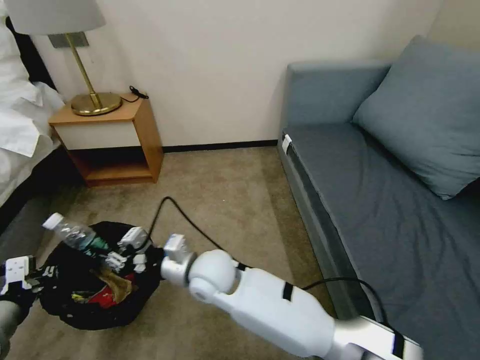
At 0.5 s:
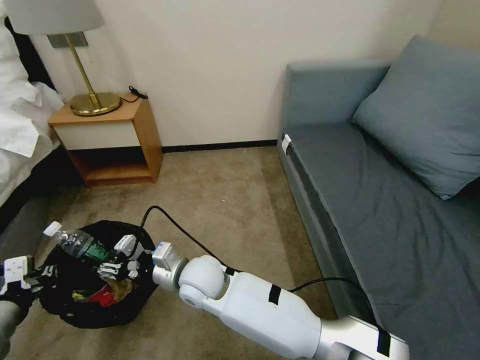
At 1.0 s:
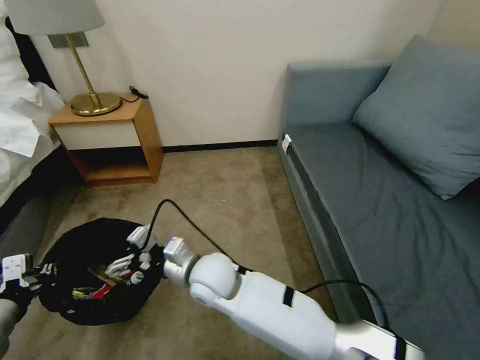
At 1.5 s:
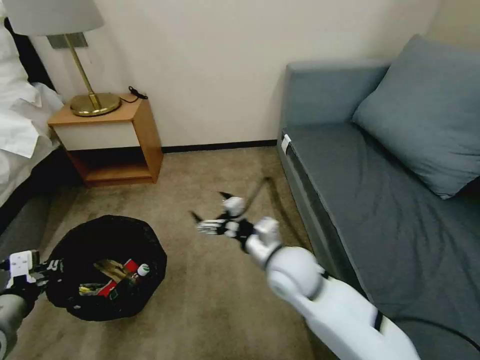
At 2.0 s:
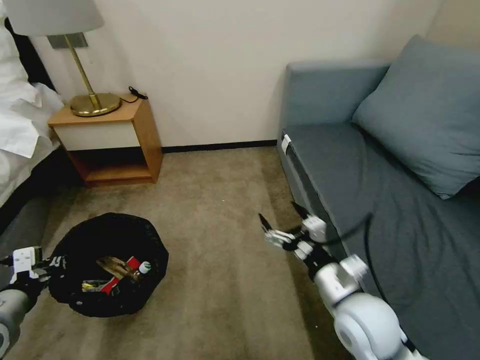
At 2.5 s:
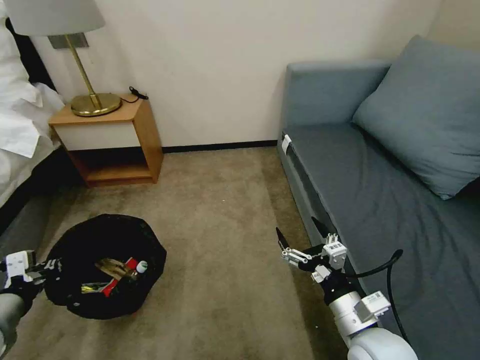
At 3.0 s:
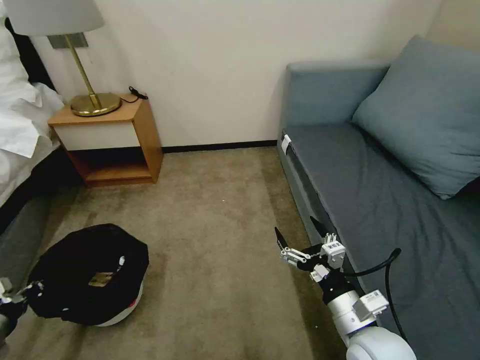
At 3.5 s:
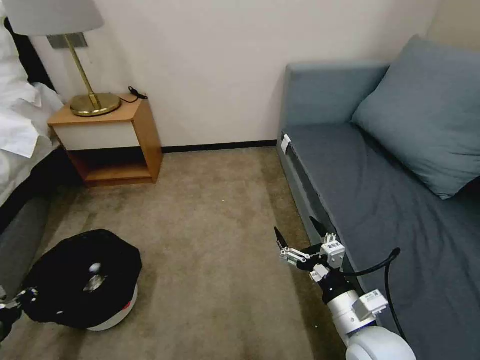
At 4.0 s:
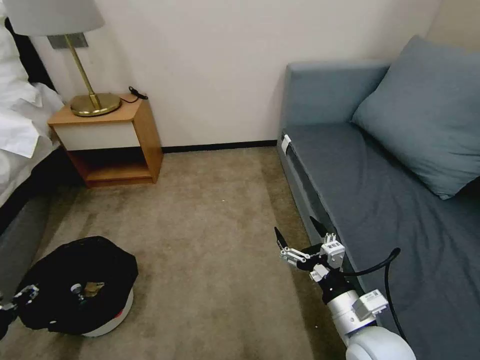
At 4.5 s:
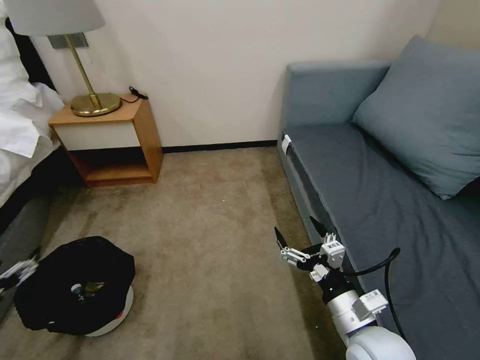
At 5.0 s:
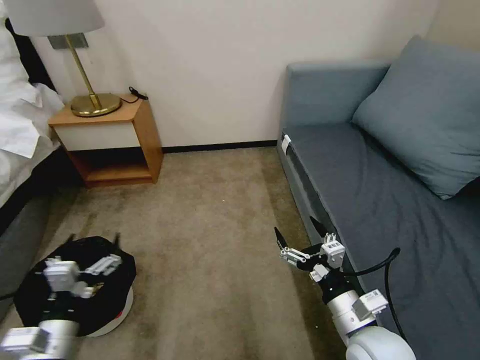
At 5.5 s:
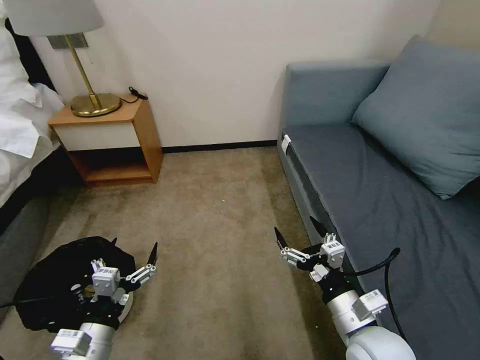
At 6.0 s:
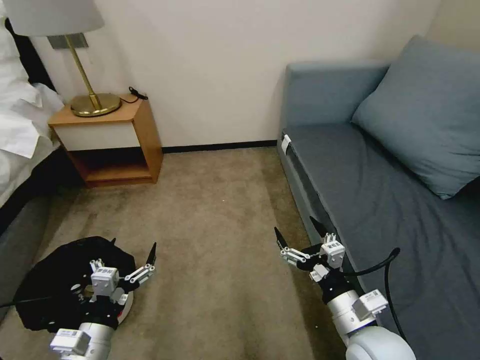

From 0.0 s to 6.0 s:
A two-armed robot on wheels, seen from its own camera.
Task of the whole recording: Pick up the trash bin, then pick up the garbage on the floor and place it into the trash bin.
From 0.0 s to 2.0 s: The right gripper is displaced to the right by approximately 30 cm, and opens.
From 2.0 s to 4.0 s: The left gripper shifts about 15 cm to the left and downward.
From 4.0 s to 6.0 s: The left gripper heads to the right, covering about 25 cm, and opens up.

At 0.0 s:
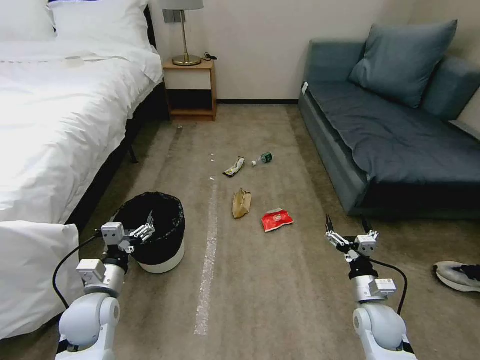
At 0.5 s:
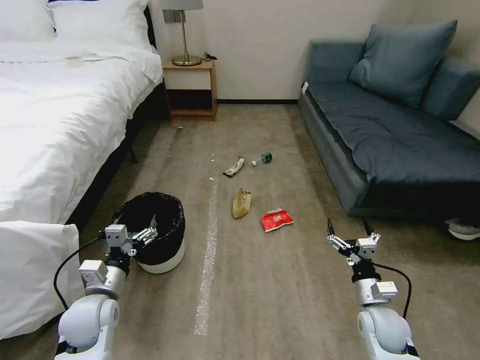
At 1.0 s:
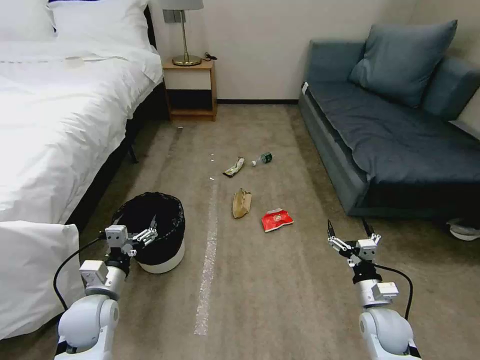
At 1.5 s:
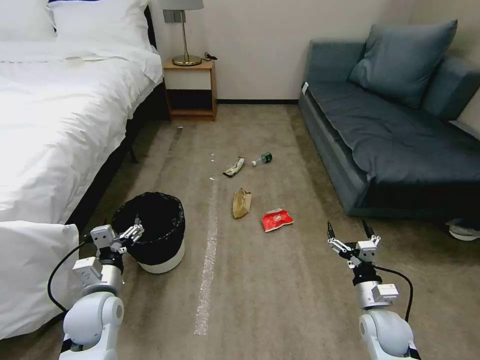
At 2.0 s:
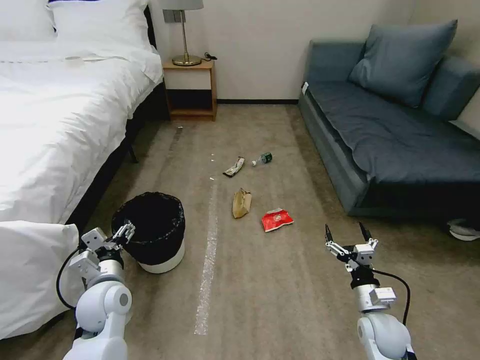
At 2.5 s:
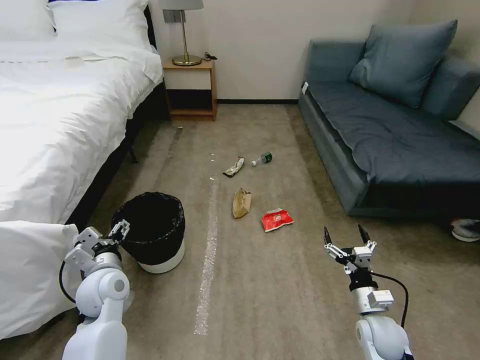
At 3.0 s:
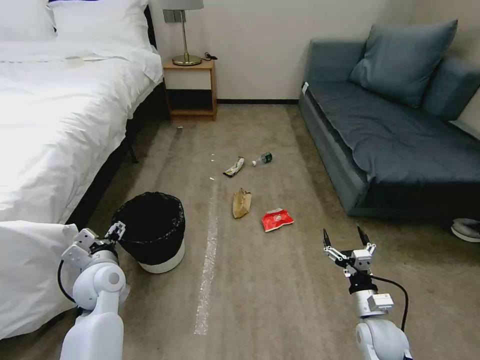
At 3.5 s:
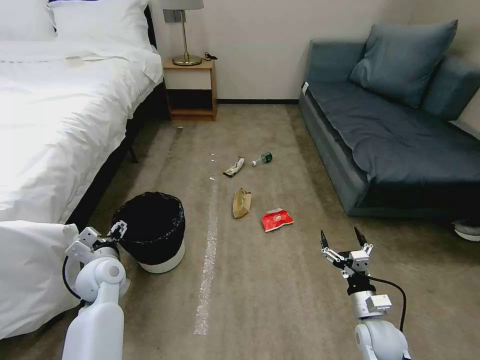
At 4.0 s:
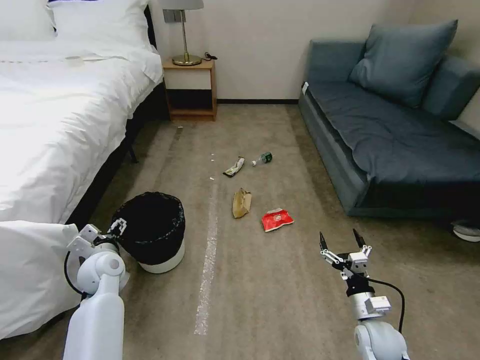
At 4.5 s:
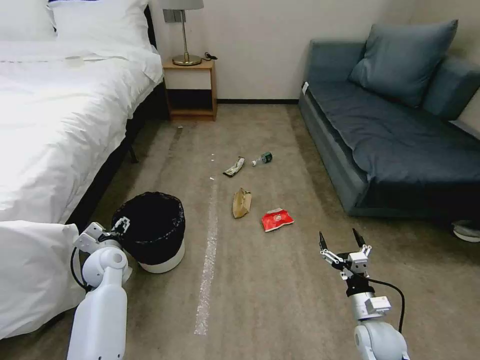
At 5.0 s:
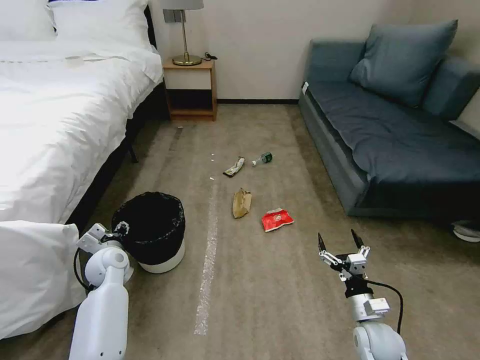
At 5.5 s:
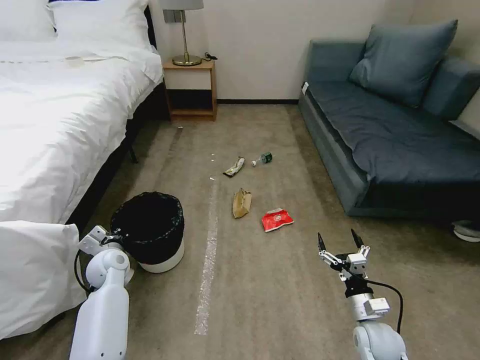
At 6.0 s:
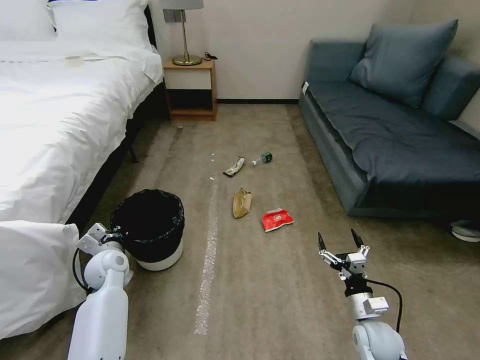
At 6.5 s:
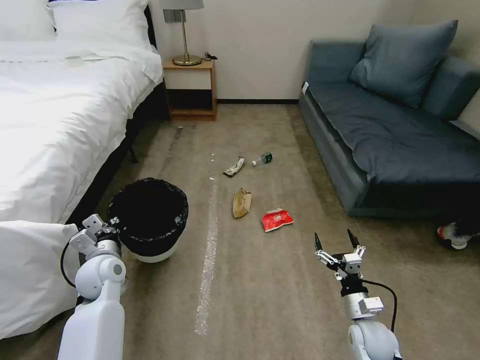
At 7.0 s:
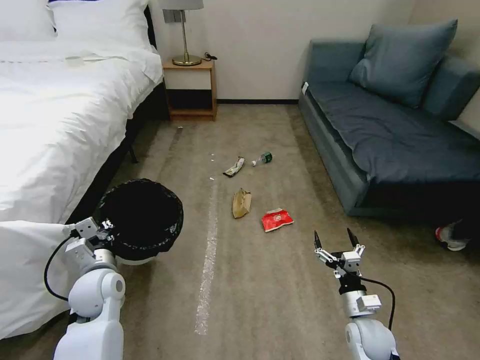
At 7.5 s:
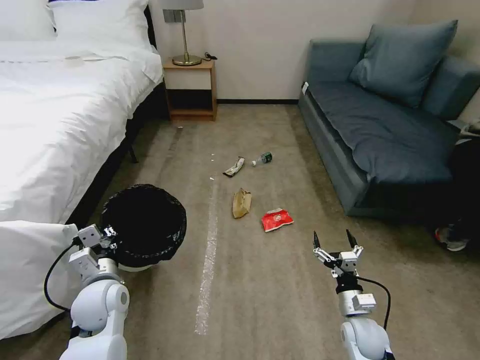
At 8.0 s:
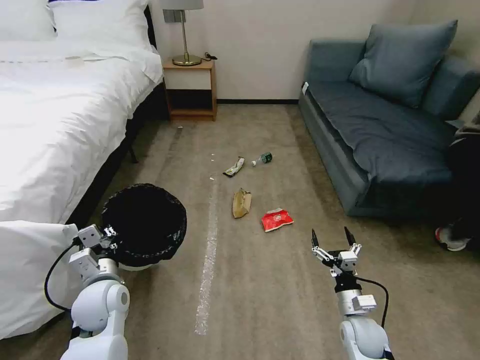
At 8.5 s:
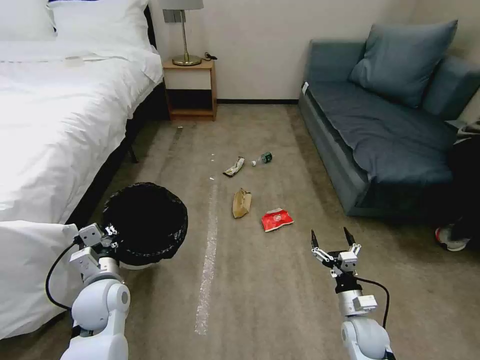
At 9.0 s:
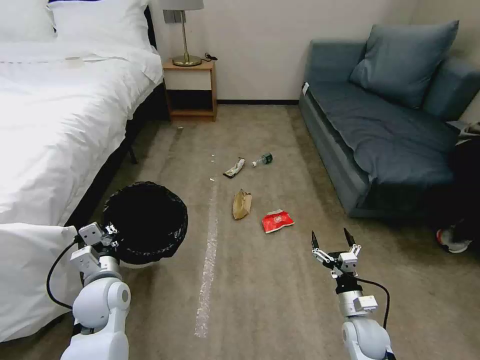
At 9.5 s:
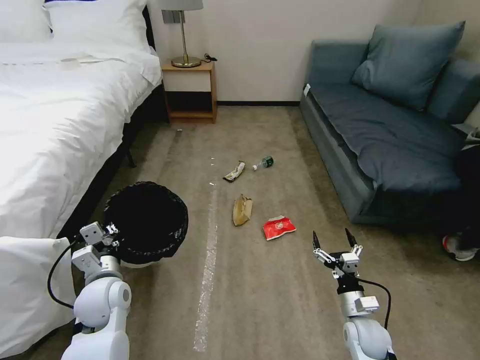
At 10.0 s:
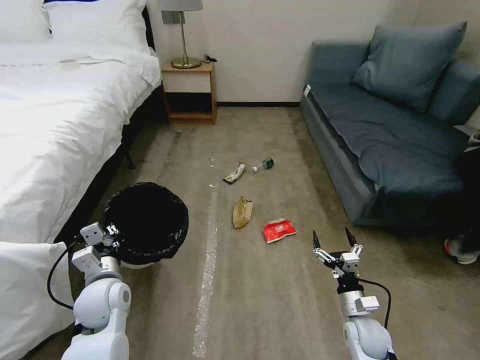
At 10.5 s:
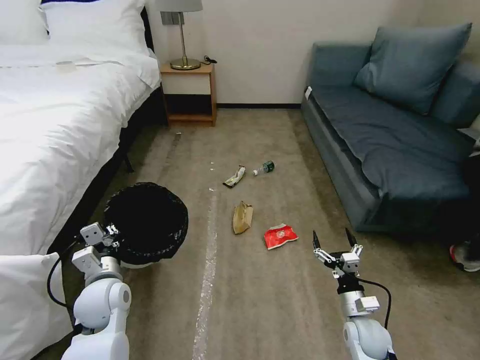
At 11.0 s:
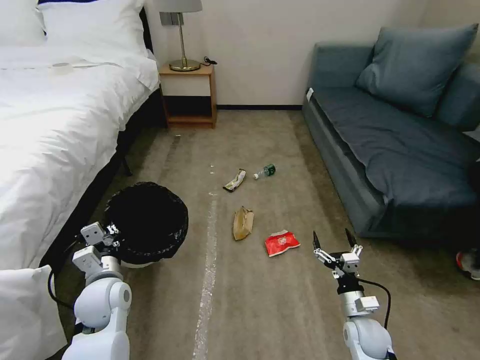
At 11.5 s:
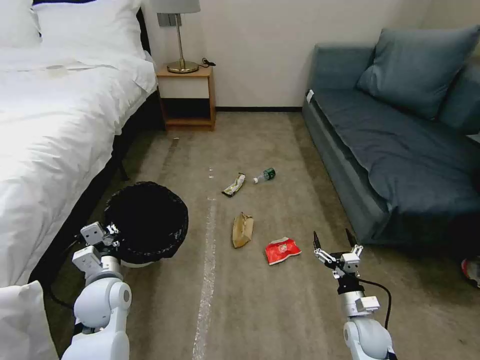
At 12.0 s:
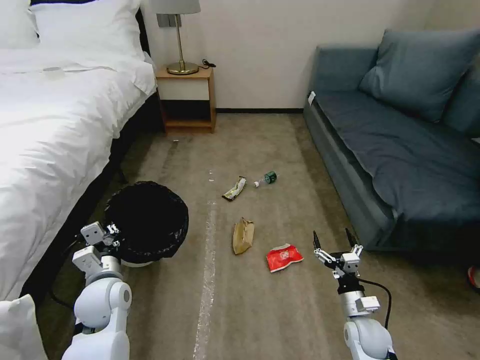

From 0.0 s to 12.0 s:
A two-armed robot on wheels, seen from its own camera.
Task of the whole recording: Pick up the trash bin, then pick up the garbage on the floor and place it into the trash bin.
From 2.0 s to 4.0 s: The left gripper shifts approximately 10 cm forward.
From 4.0 s to 6.0 s: The left gripper closes its fingers.
From 6.0 s to 8.0 s: The left gripper travels backward by about 10 cm.
From 8.0 s to 10.0 s: Both grippers stay about where they are.
From 10.0 s to 12.0 s: Both grippers stay about where they are.

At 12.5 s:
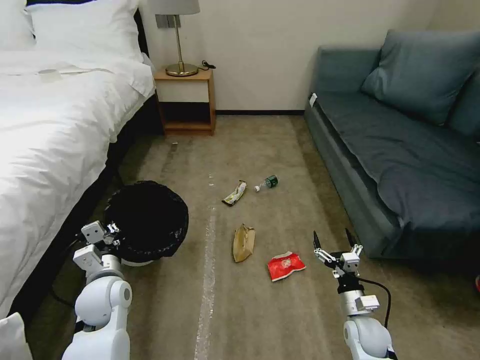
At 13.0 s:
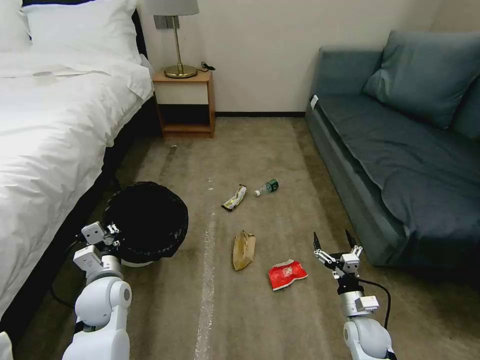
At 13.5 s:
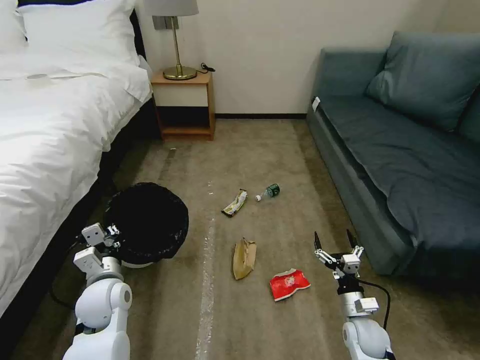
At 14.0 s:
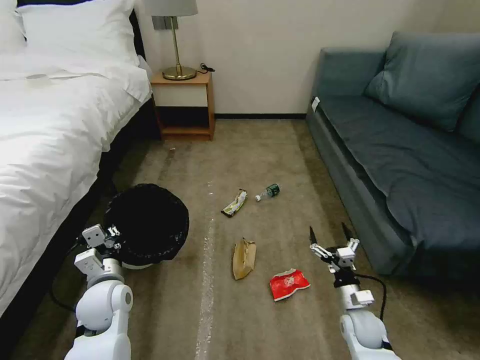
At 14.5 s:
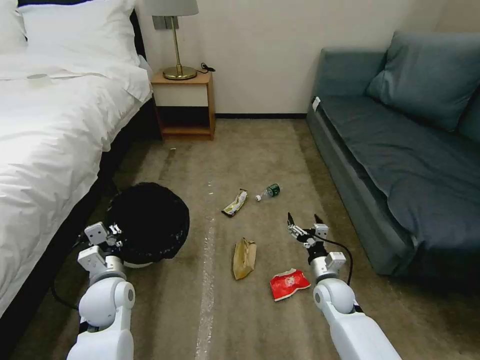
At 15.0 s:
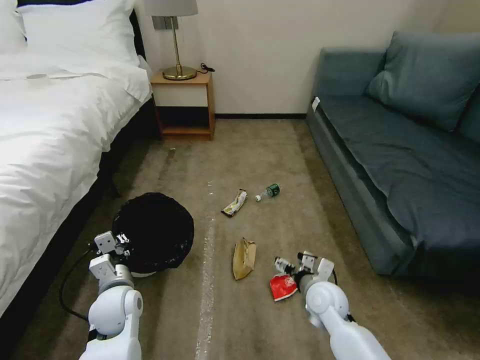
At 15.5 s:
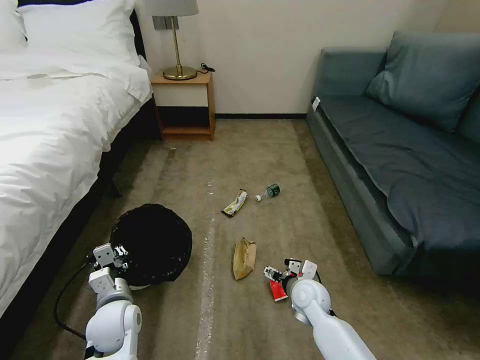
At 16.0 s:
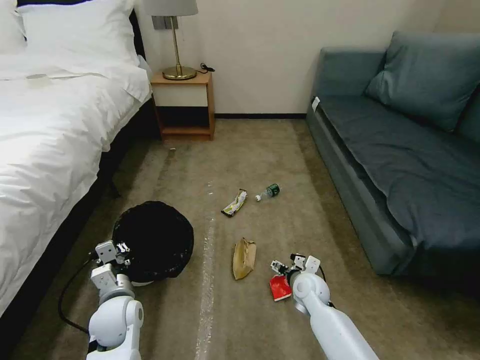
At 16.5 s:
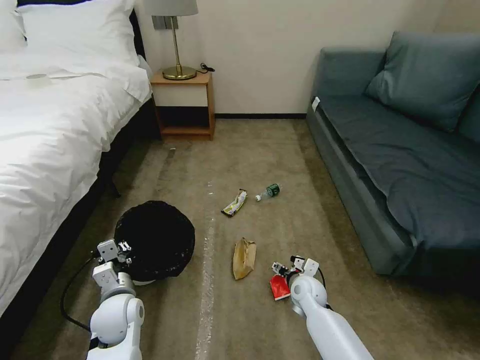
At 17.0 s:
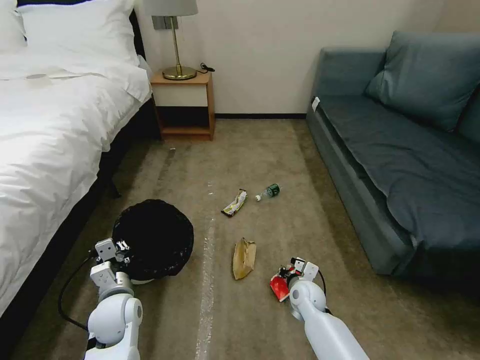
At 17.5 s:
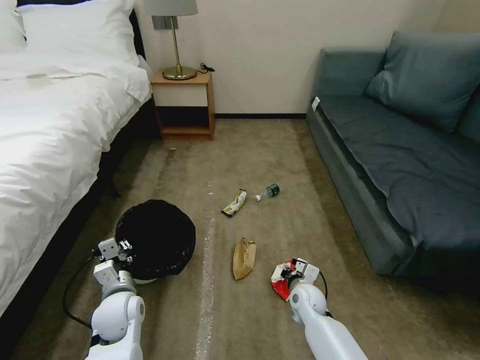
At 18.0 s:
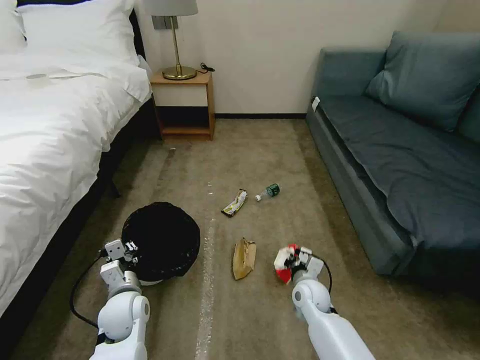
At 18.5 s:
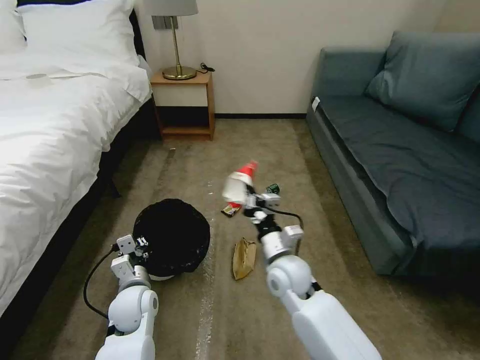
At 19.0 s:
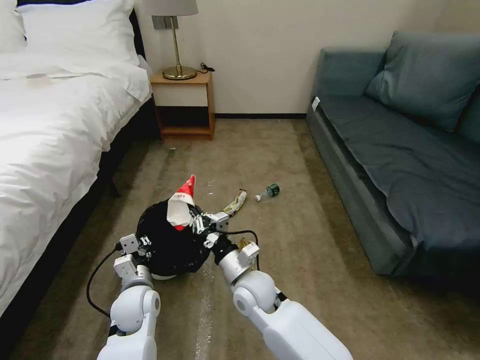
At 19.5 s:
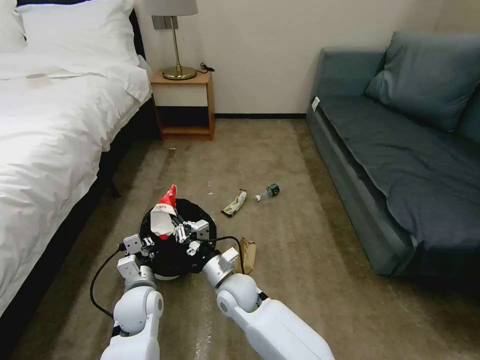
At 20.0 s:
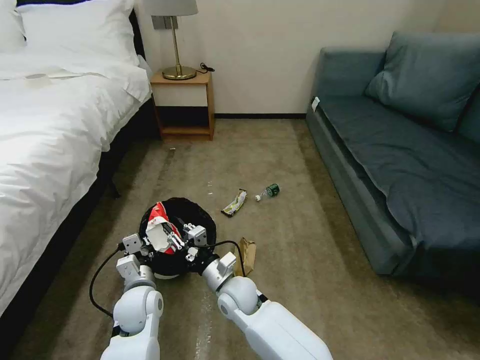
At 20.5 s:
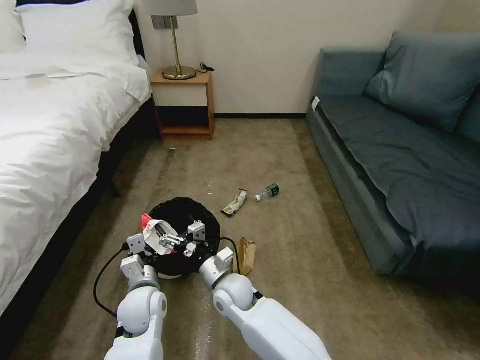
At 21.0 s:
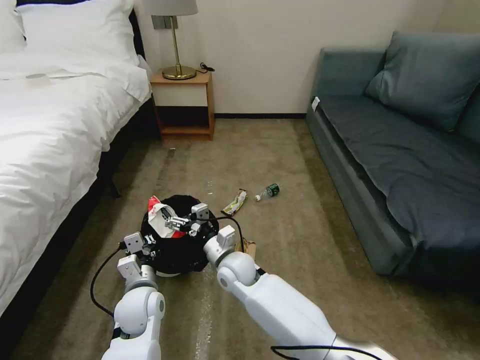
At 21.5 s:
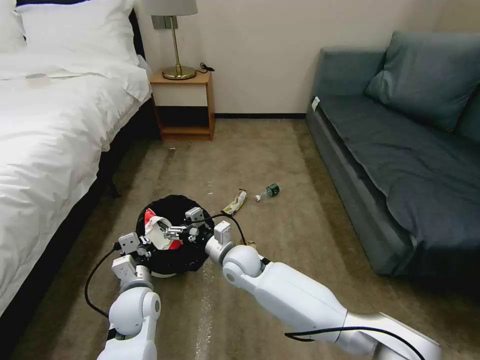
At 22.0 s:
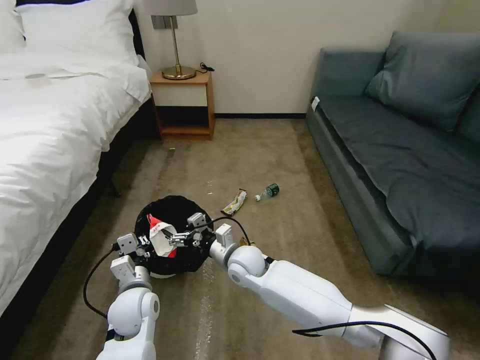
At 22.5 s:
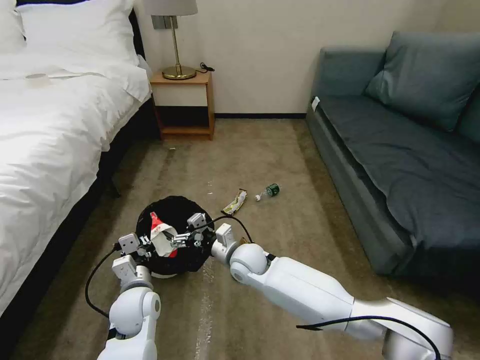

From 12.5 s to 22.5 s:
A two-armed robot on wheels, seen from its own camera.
Task of the whole recording: Pick up the trash bin, then pick up the garbage on the floor and place it into the trash bin.
From 12.5 s to 14.5 s: The right gripper goes approximately 10 cm forward and to the left.
From 14.5 s to 16.5 s: The right gripper heads to the left, covering some 5 cm, and moves some 5 cm upward and comes back.
From 16.5 s to 18.5 s: The right gripper travels upward and to the left by some 15 cm, and closes up.
From 18.5 s to 20.5 s: The right gripper travels to the left and downward by some 15 cm, and opens.
From 20.5 s to 22.5 s: The right gripper goes some 5 cm forward.
